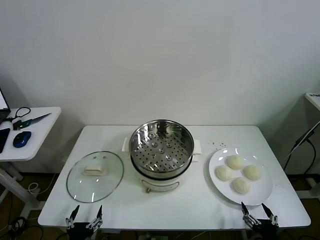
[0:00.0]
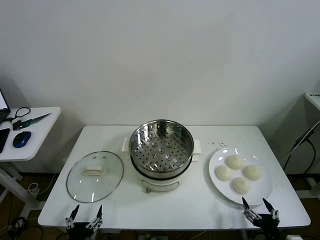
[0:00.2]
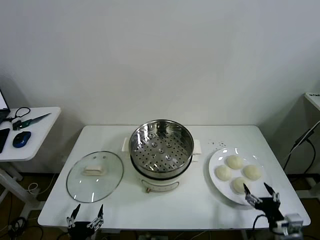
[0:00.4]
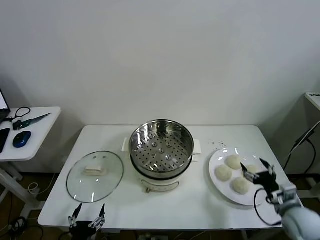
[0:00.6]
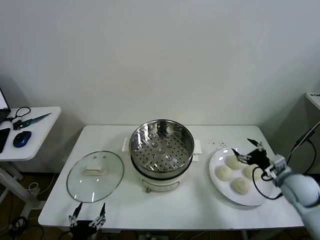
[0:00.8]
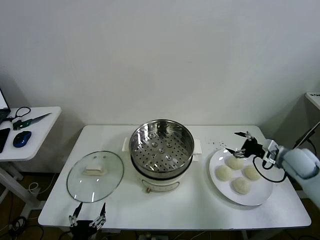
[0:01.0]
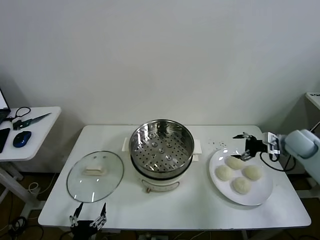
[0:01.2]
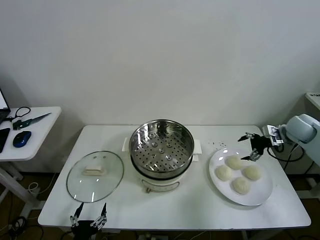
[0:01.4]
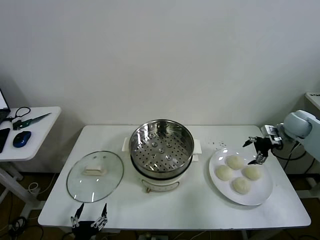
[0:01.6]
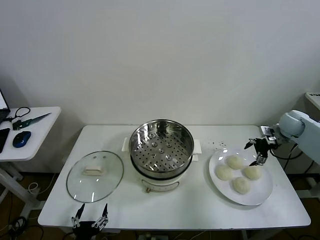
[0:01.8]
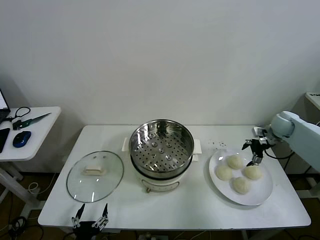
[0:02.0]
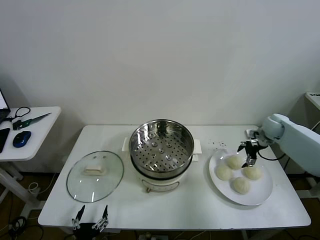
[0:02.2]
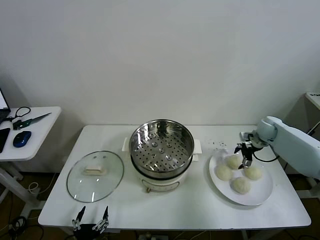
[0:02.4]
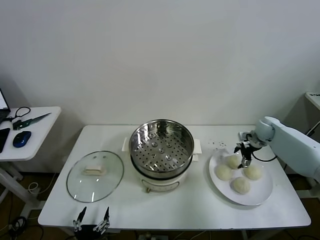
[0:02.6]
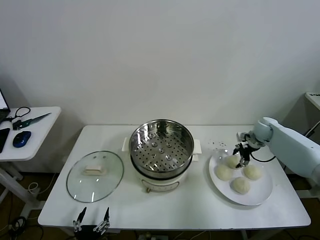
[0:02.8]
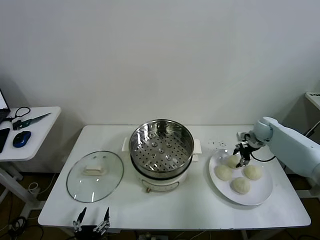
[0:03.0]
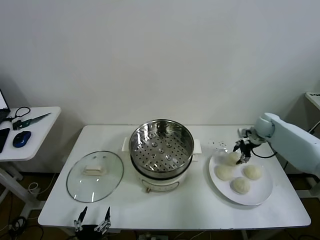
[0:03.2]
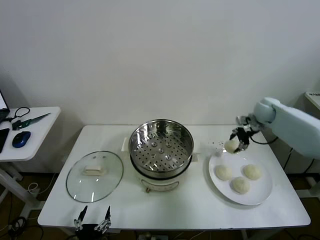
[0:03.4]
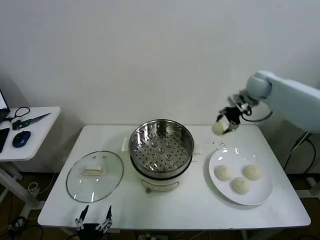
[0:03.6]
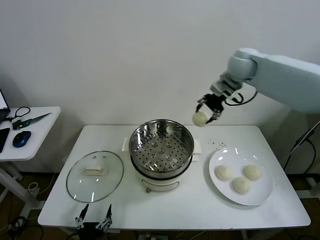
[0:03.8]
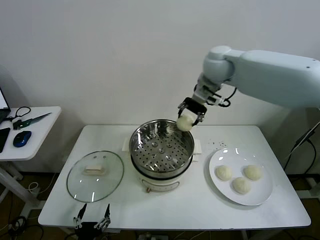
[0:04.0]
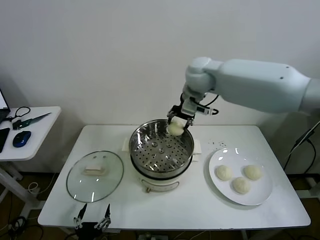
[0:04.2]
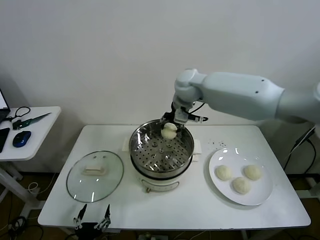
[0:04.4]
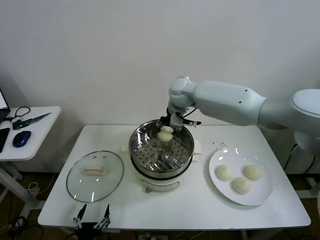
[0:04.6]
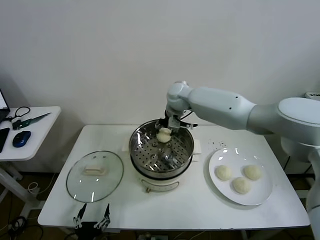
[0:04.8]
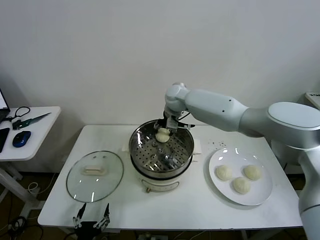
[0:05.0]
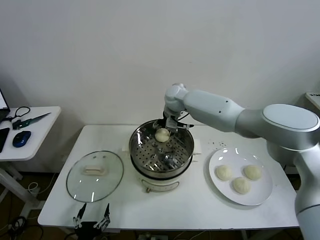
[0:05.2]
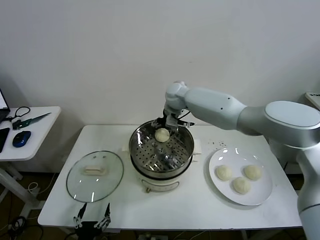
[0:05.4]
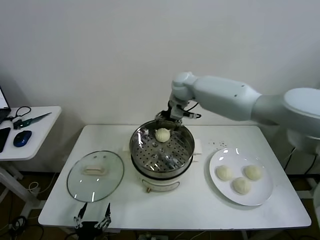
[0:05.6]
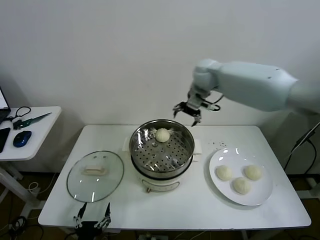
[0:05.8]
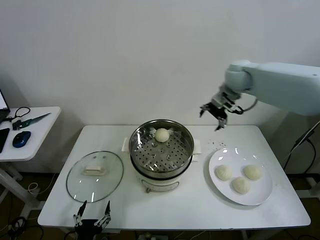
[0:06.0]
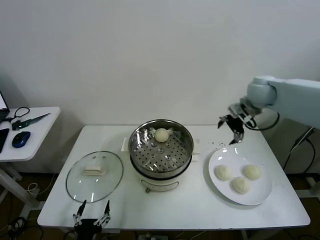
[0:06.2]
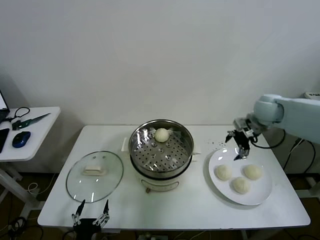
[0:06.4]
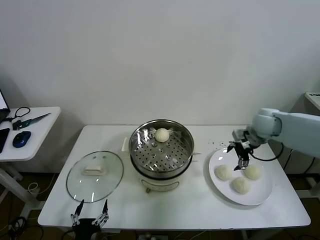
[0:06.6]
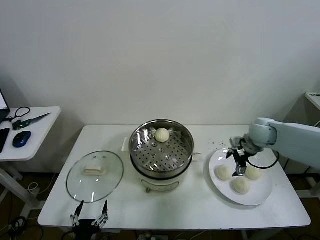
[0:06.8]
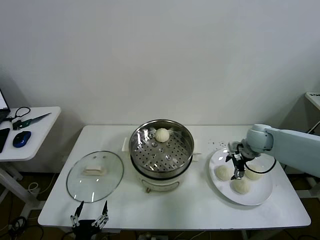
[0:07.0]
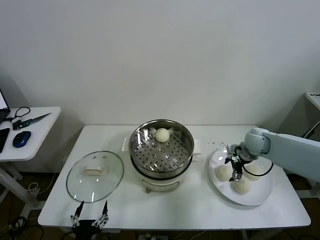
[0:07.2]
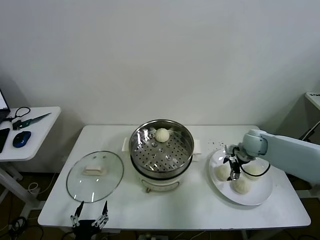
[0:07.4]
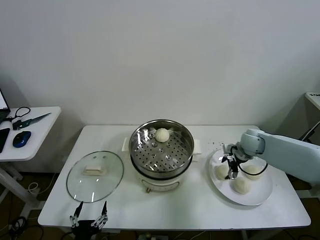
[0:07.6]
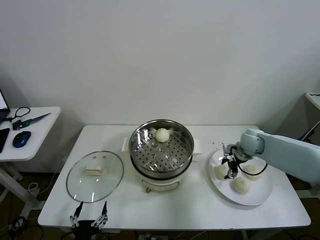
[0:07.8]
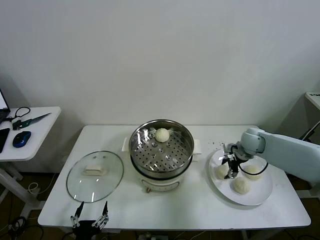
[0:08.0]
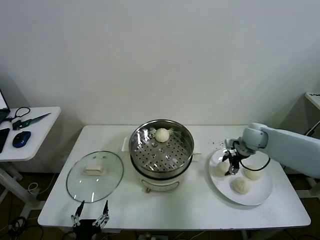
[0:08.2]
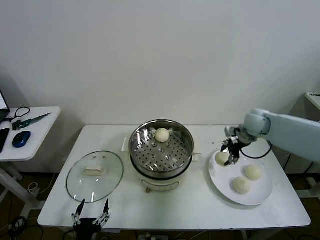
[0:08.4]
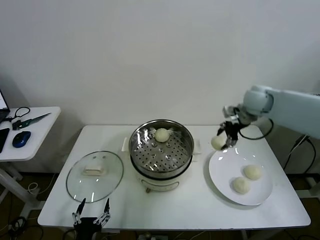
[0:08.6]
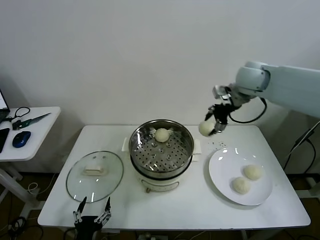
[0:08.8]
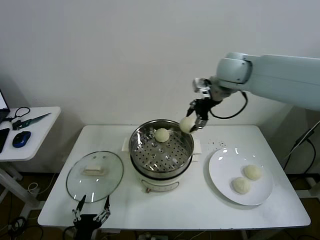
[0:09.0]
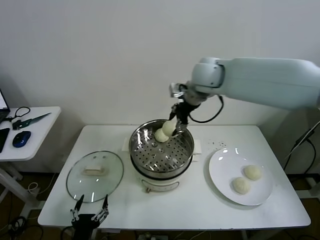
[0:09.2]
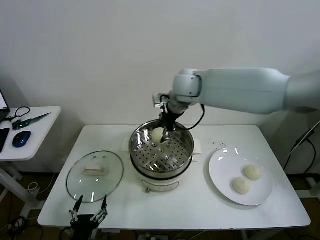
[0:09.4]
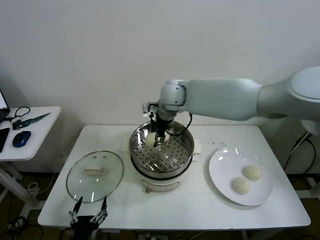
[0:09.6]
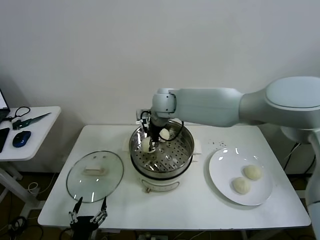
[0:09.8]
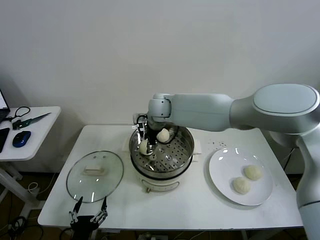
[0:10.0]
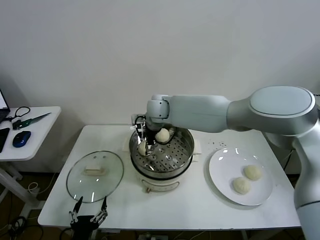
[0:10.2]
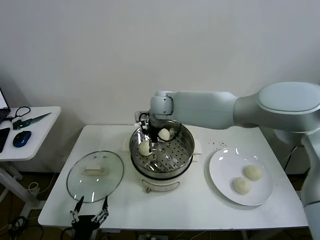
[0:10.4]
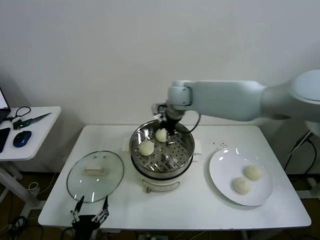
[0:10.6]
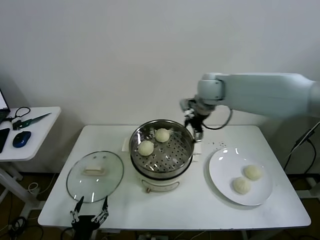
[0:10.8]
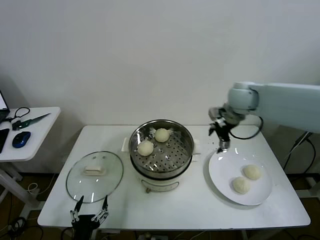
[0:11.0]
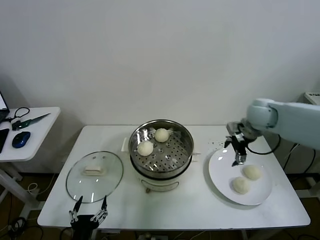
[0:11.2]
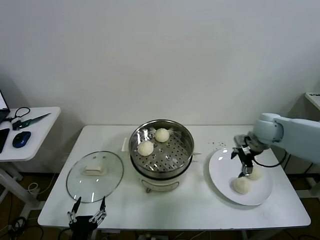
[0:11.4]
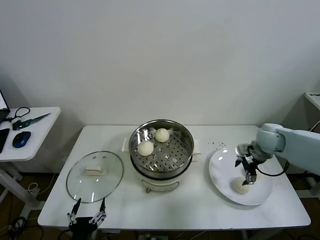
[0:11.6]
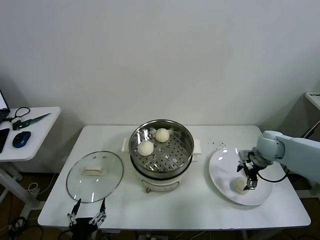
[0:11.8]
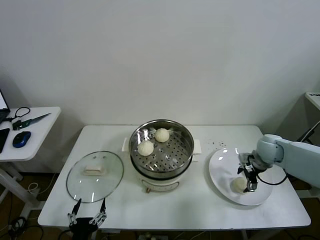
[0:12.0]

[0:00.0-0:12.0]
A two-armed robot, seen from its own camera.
Task of the whole recording: take steamed baozi put them in steamer then cover it.
Step, 0:00.0 to 0:02.8: Grasp the baozi in the plate with right gripper.
Step, 0:03.0 to 0:05.2: Place the baozi on the steamer with right gripper.
Step, 0:05.6 to 0:07.8: Grasp the baozi in the plate with right gripper.
Step, 0:08.0 to 0:10.4: Place the baozi on the steamer with right gripper.
0:01.6 to 0:03.0: The right gripper travels downward and to the left by about 10 cm, and closes up.
0:03.0 to 0:04.4: The right gripper is displaced to the left and upward by about 40 cm.
0:04.4 to 0:06.0: The right gripper shifts approximately 20 cm to the right, and opens.
0:06.0 to 0:07.6: The right gripper is displaced downward by roughly 20 cm.
0:07.6 to 0:09.0: The right gripper travels upward and to the left by some 35 cm, and closes up.
0:09.0 to 0:10.4: The right gripper travels to the left and downward by some 20 cm, and opens.
0:10.4 to 0:12.0: The right gripper travels to the right and downward by about 40 cm.

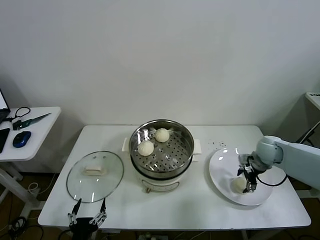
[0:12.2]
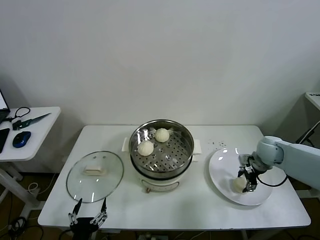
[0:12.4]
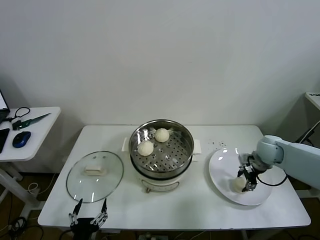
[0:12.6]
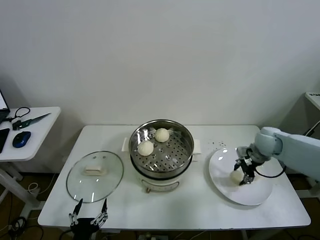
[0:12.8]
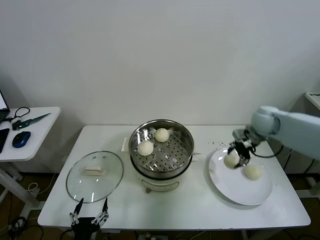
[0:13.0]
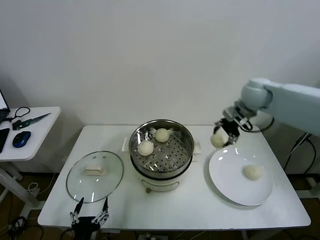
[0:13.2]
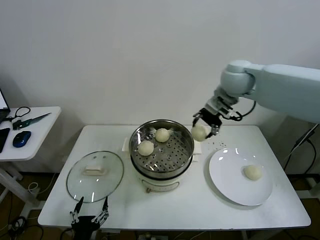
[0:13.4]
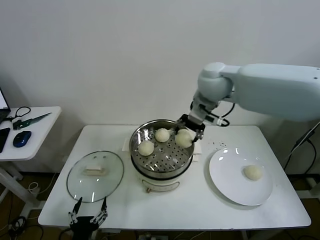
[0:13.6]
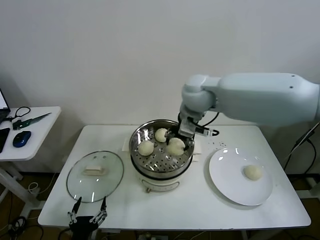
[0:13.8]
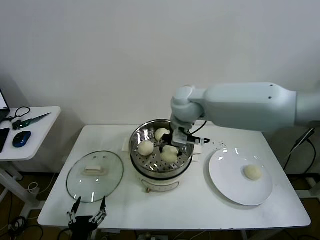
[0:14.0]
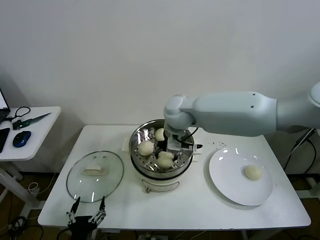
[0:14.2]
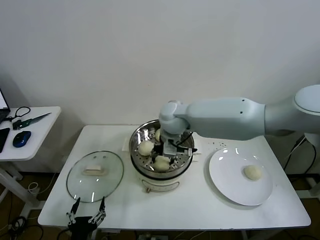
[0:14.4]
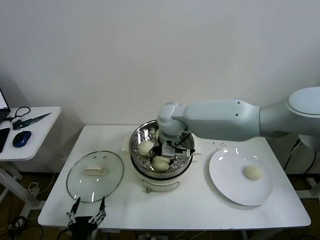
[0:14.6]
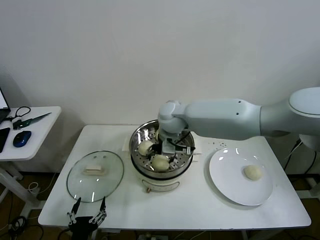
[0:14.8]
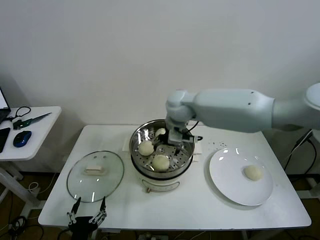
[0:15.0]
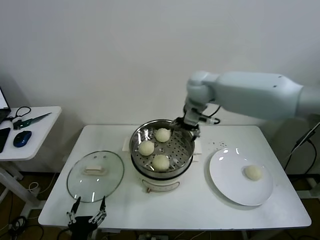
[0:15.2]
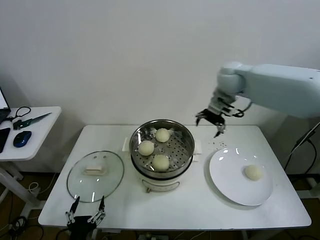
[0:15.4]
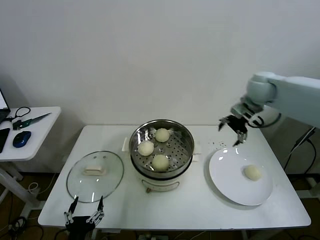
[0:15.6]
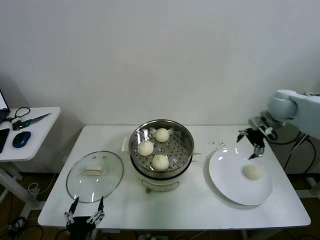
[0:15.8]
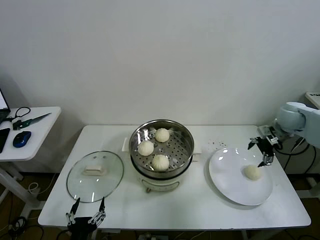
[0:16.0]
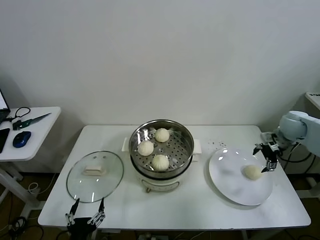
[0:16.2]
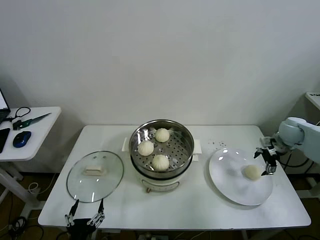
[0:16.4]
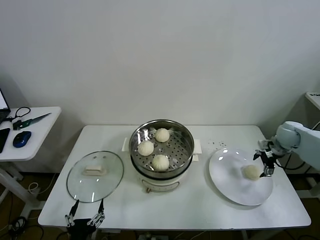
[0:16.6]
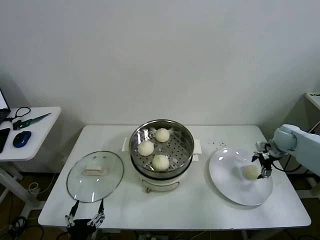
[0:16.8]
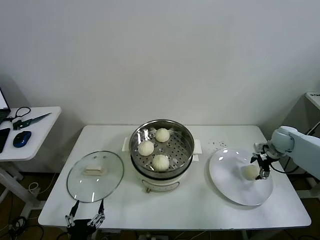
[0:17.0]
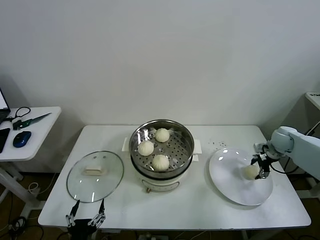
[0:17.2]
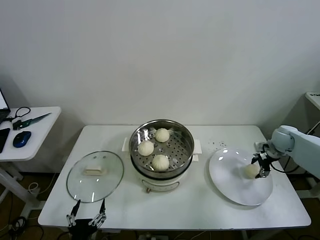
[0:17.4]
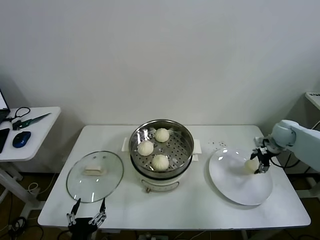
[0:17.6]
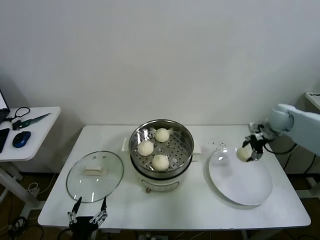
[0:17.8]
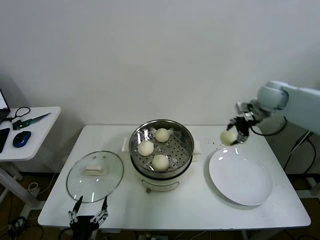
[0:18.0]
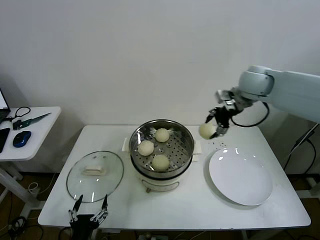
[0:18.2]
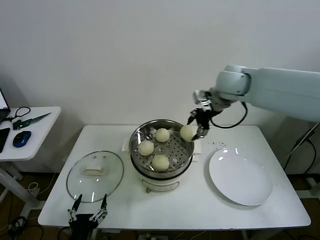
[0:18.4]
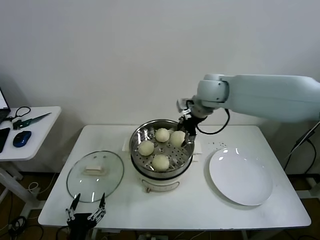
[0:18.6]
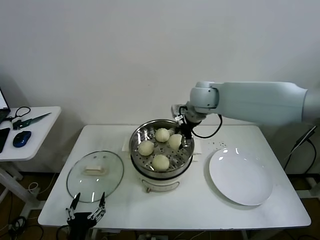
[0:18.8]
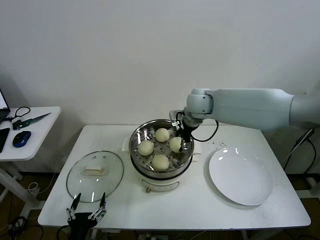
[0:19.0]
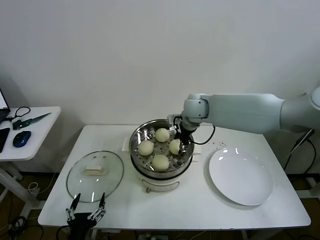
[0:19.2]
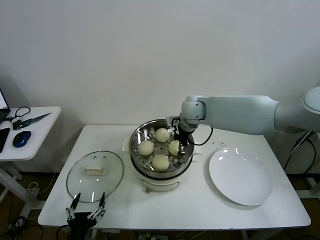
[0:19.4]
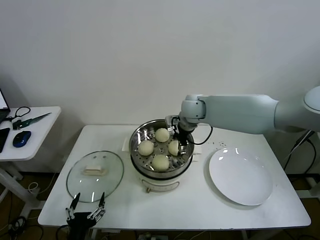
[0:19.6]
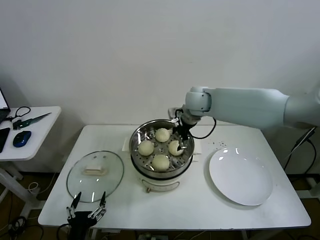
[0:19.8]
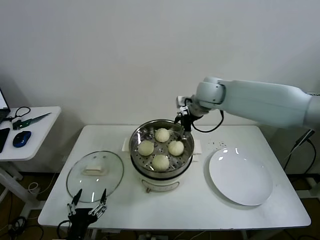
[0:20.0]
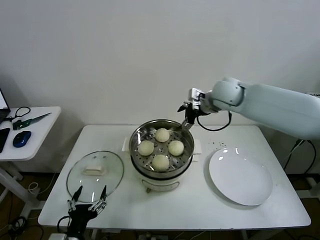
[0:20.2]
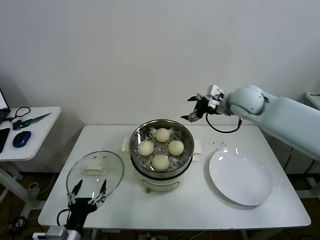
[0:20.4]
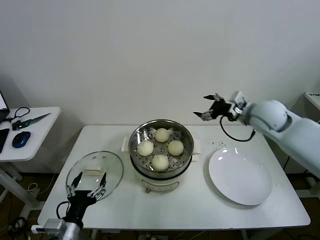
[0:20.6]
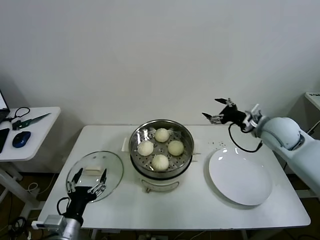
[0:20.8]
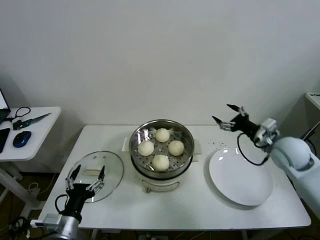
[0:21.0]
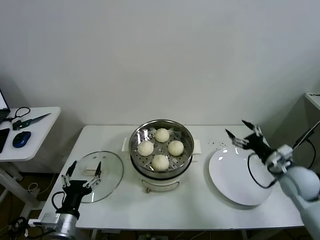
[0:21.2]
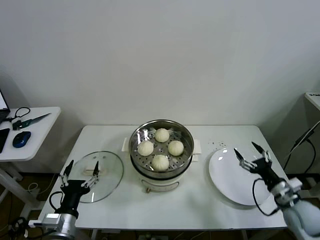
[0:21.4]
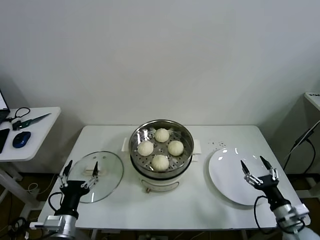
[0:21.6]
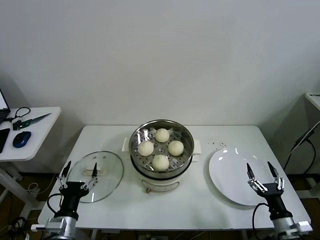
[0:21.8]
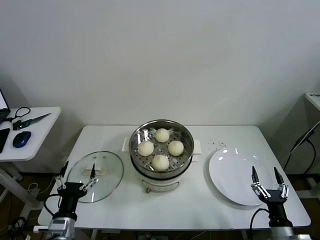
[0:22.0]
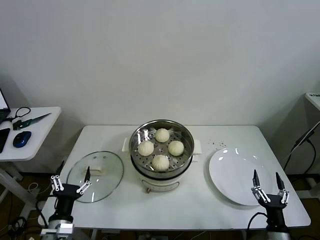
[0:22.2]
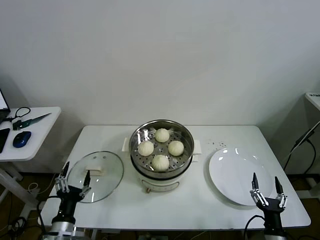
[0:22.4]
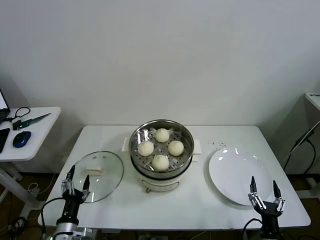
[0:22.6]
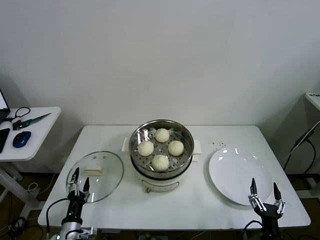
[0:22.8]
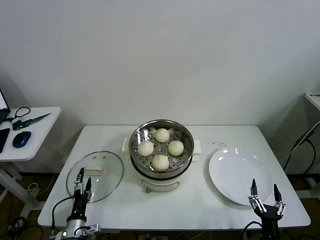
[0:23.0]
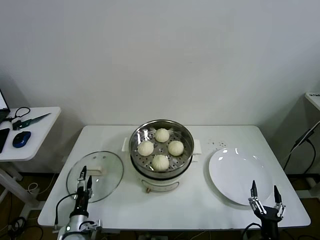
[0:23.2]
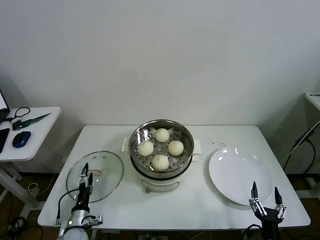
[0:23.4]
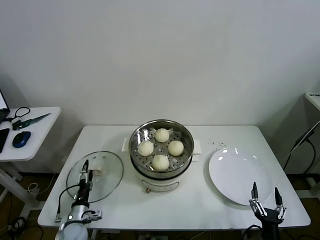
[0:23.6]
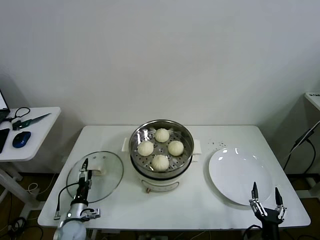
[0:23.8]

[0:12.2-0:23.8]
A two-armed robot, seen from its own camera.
Task of the whole recording: take steamed baozi put them in steamer then cover it.
Step, 0:12.6 to 0:14.8: Place the baozi on the steamer with right gripper.
Step, 0:15.0 to 0:17.2: Grasp the baozi in the plate with right gripper.
Step, 0:17.4 to 0:19.8: Place the baozi on the steamer with right gripper.
0:12.2 to 0:13.6: The right gripper goes some 35 cm to the left and upward, and closes.
0:13.6 to 0:15.0: The right gripper goes roughly 10 cm downward and to the left, and opens up.
0:15.0 to 0:16.6: The right gripper goes about 40 cm to the right.
0:16.6 to 0:18.0: The right gripper moves upward and to the left, roughly 20 cm, and closes its fingers.
0:18.0 to 0:19.4: The right gripper heads to the left, covering approximately 25 cm.
0:19.4 to 0:21.0: The left gripper heads forward, covering roughly 5 cm. The right gripper is displaced to the right and backward by about 30 cm, and opens.
0:21.0 to 0:22.4: The right gripper travels backward and downward by about 35 cm. Meanwhile the left gripper travels downward by roughly 5 cm.
0:22.4 to 0:23.8: The left gripper goes about 15 cm downward and forward.
